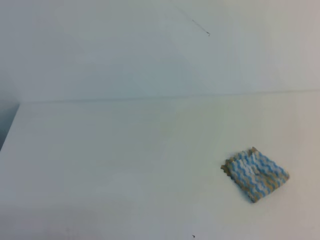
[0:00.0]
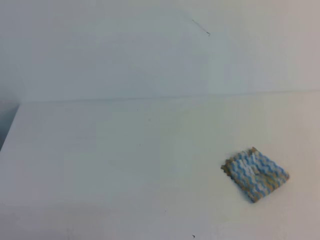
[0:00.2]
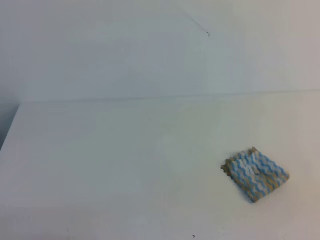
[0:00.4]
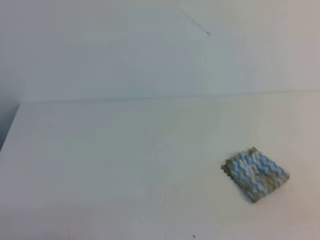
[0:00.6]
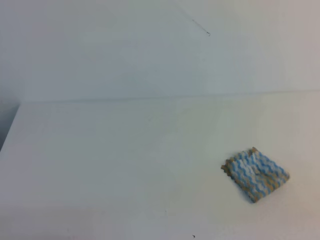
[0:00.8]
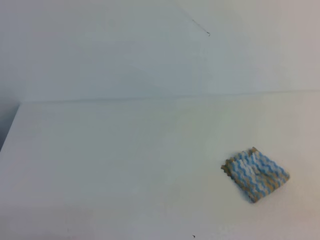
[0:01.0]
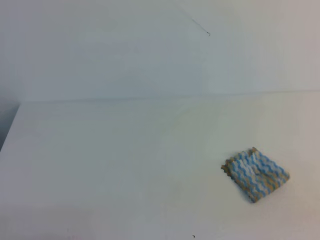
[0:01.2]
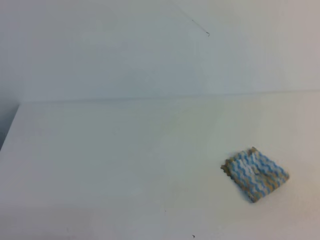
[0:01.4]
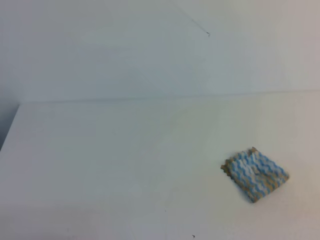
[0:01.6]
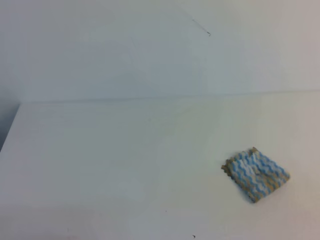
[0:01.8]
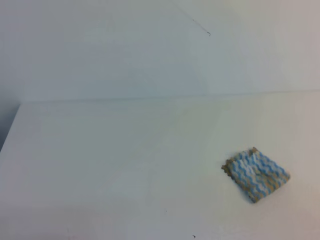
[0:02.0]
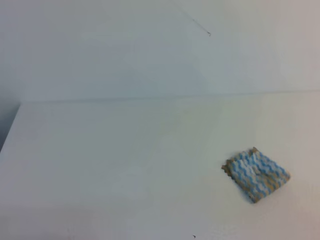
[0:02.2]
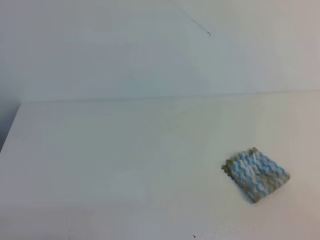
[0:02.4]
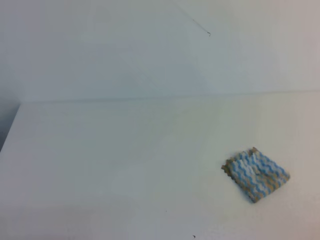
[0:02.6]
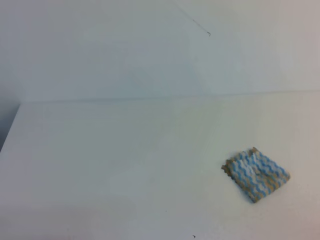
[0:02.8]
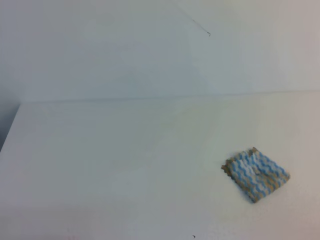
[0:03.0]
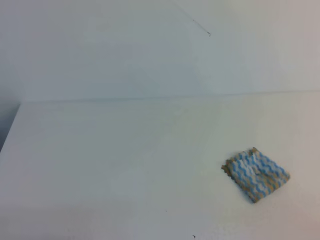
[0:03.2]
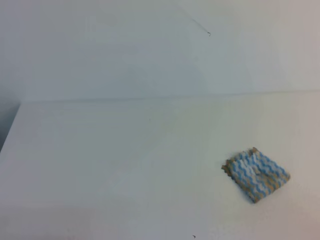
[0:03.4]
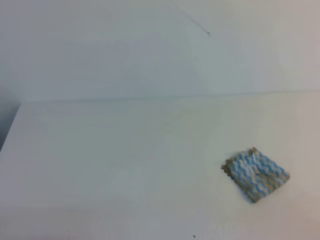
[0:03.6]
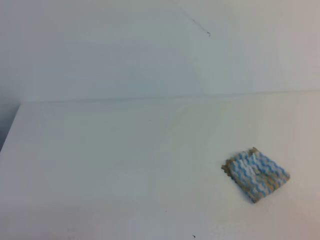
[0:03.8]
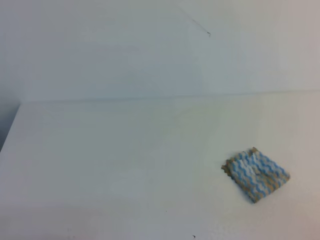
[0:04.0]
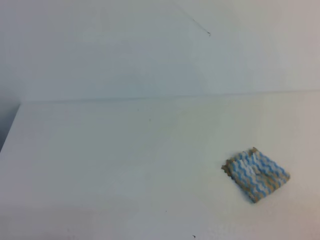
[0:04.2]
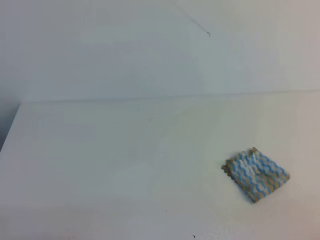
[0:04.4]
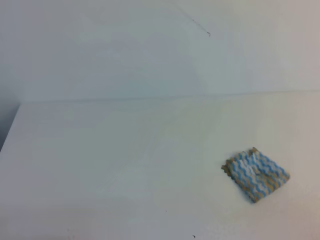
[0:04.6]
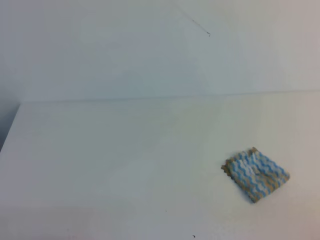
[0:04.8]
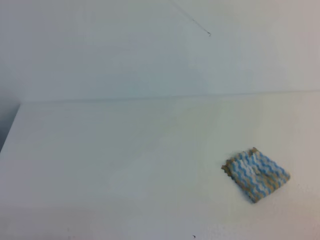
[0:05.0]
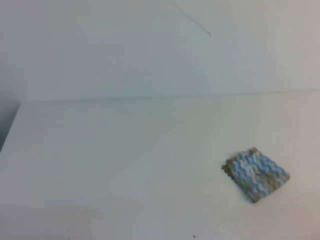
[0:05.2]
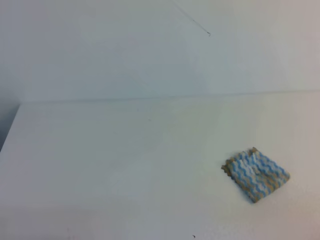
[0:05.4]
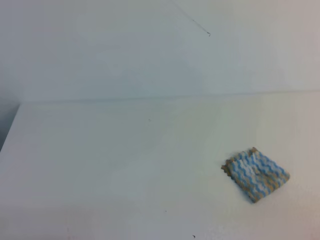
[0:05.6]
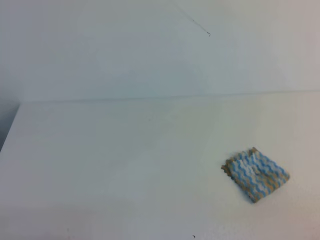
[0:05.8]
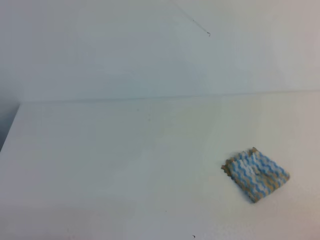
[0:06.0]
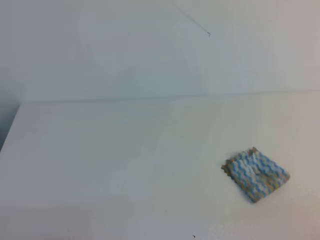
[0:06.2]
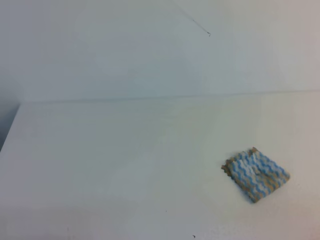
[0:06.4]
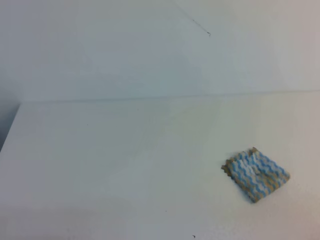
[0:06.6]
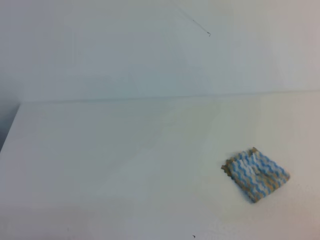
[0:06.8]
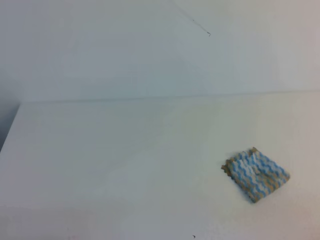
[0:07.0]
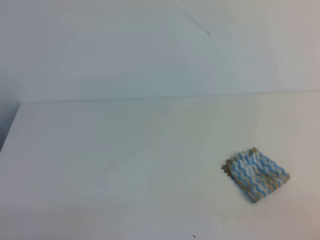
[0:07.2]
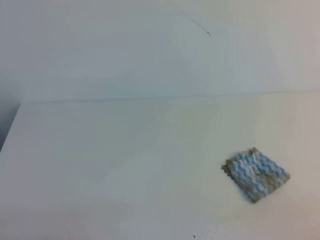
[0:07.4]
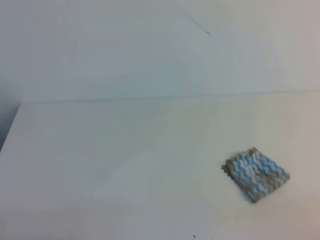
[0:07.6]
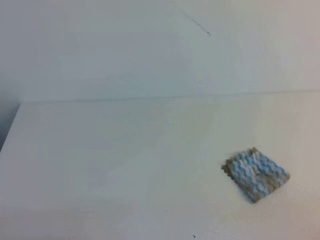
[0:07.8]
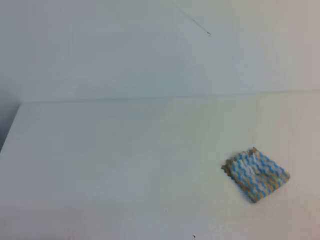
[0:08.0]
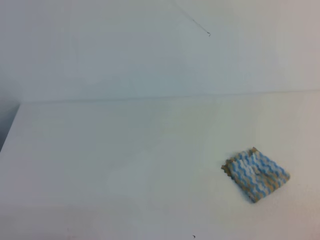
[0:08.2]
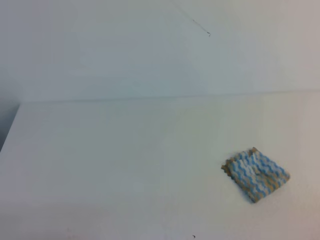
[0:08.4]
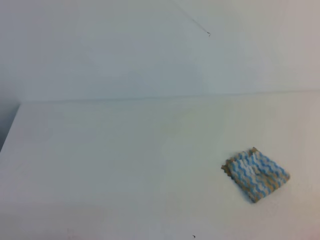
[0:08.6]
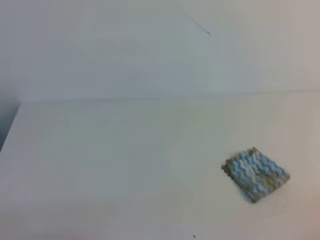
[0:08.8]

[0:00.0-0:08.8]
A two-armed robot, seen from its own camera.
0:04.4 to 0:08.8: Both grippers stay about where they are.

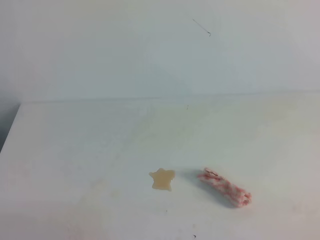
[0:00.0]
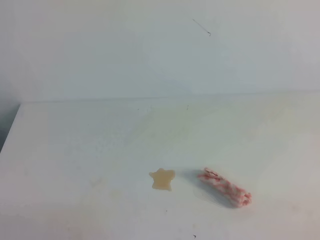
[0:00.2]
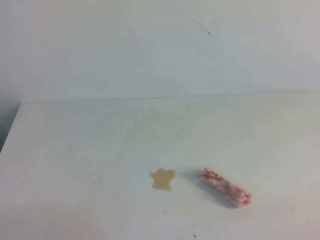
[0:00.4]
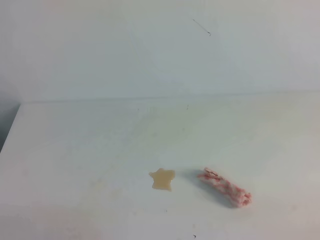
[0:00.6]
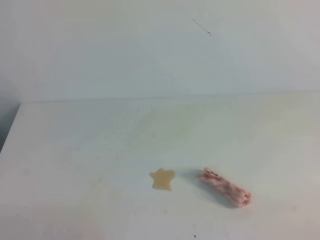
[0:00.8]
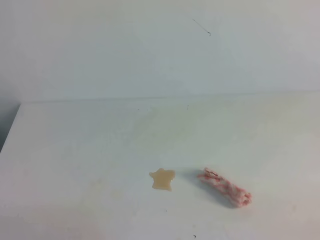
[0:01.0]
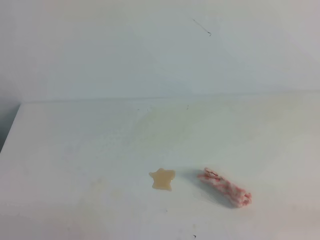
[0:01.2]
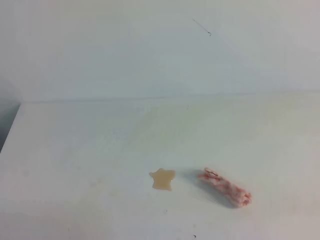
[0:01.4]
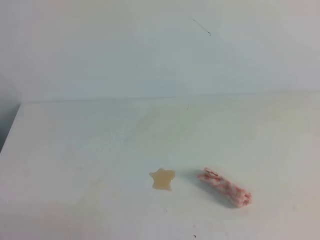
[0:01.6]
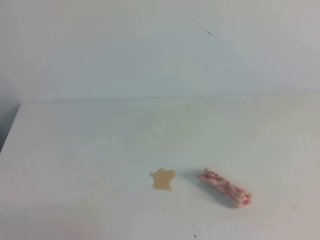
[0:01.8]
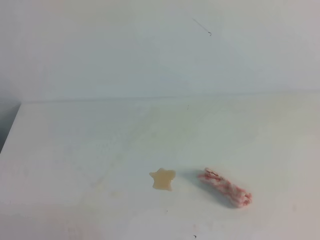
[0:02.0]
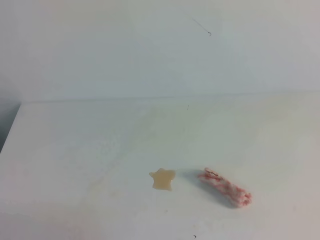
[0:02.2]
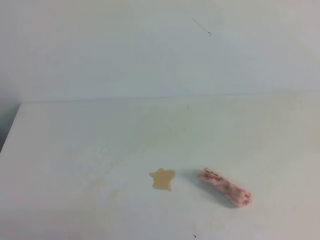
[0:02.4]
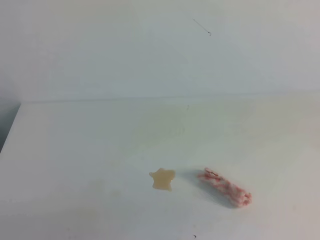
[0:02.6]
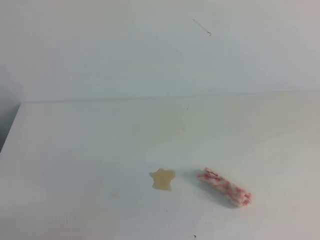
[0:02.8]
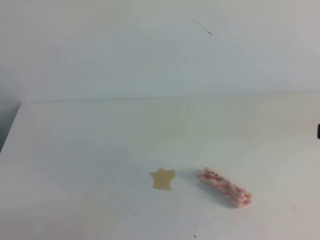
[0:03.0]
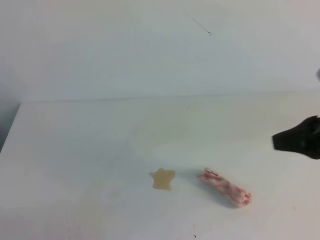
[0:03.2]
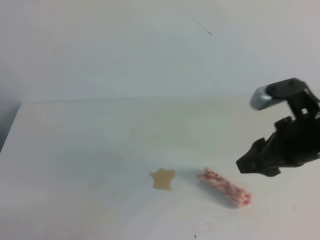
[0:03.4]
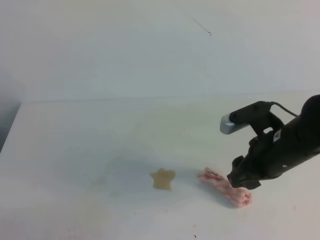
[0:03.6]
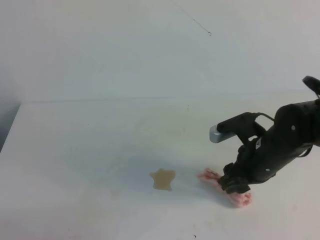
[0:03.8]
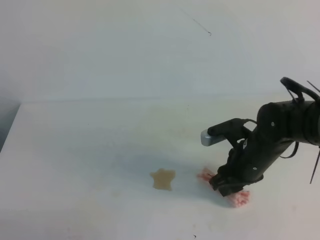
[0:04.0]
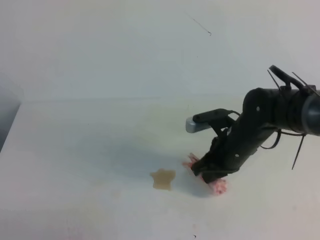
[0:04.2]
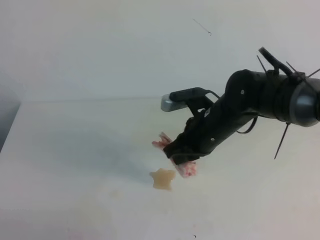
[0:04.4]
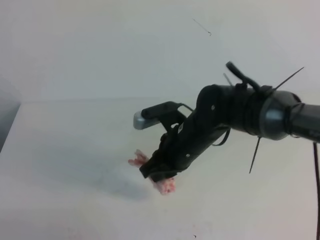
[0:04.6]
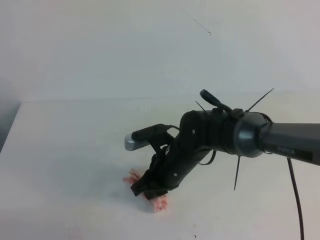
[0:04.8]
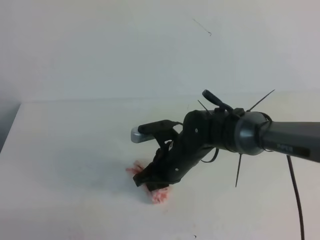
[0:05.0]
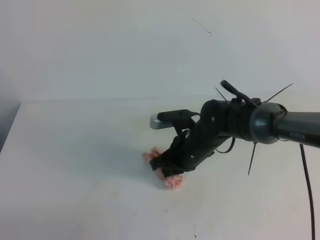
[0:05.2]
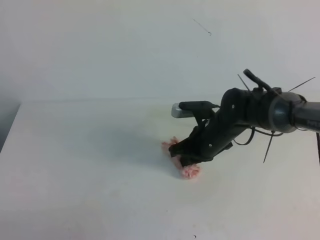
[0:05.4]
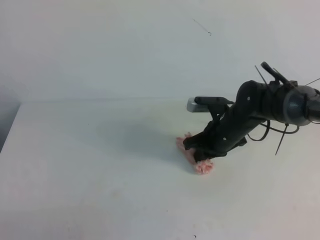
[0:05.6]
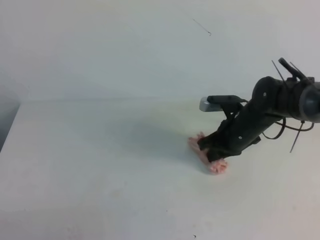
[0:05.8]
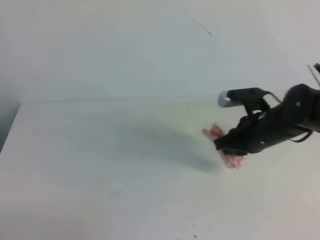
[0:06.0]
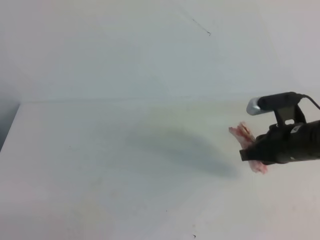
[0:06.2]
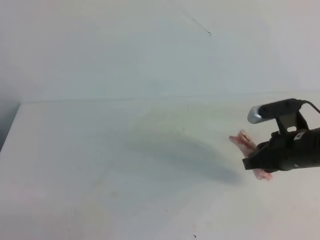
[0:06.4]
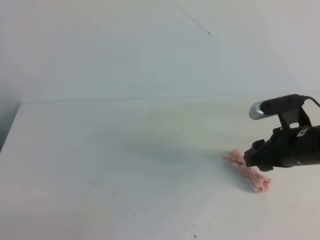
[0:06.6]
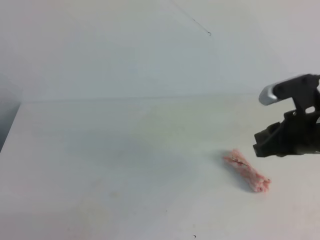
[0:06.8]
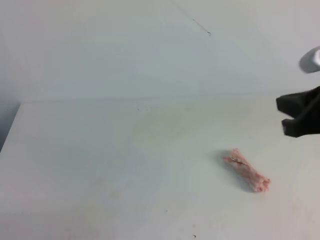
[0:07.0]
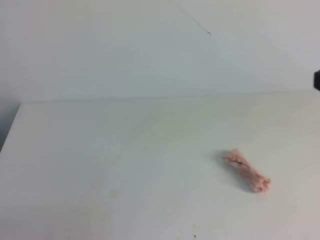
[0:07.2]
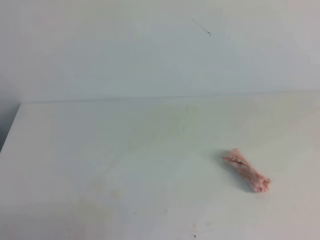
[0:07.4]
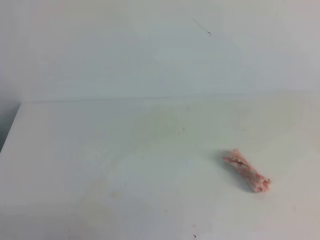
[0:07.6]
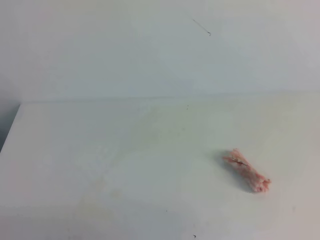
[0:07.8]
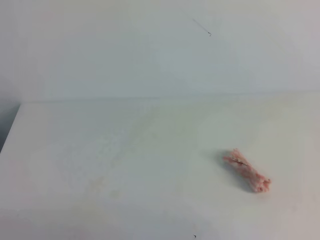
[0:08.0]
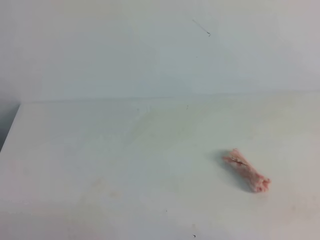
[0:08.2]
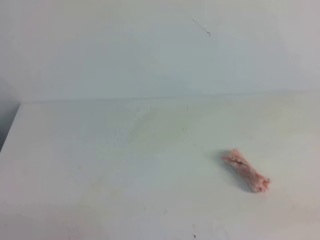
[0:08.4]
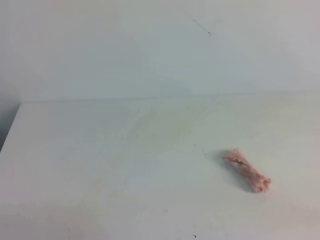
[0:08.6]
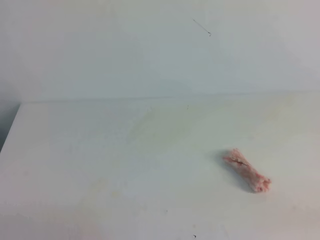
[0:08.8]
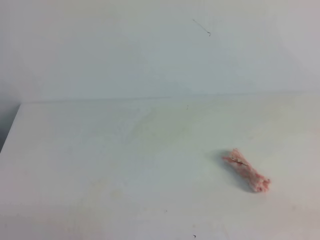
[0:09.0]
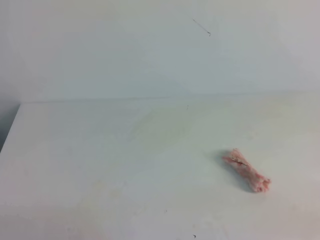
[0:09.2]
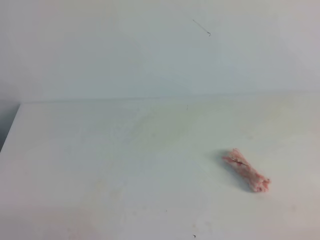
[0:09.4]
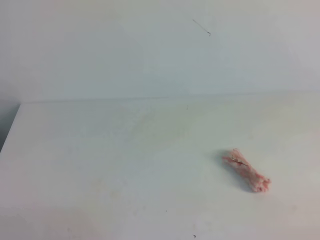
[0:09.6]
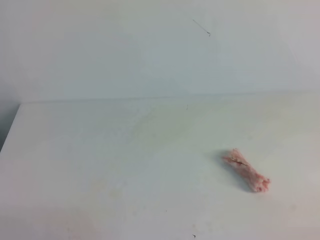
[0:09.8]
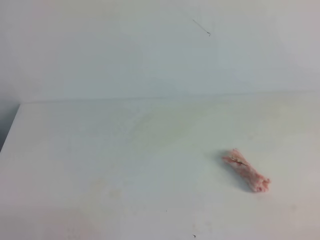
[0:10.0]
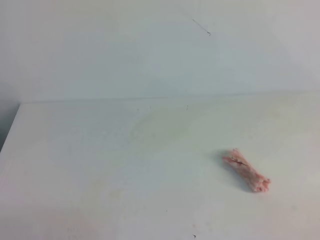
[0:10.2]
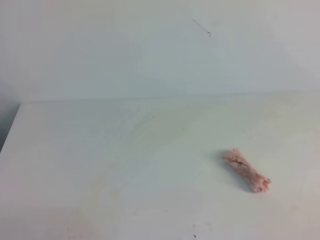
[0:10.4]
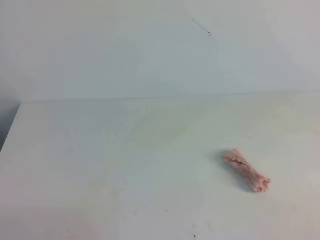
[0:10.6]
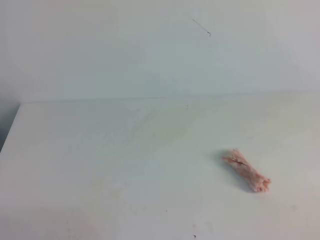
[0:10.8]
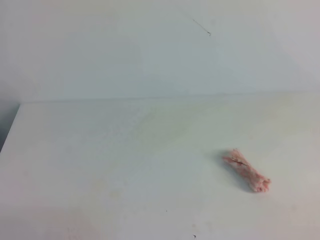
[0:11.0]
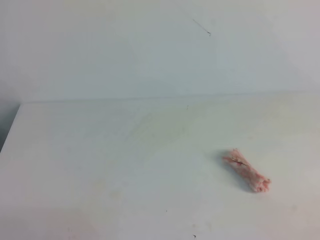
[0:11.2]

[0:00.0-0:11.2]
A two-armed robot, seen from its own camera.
0:01.6 to 0:03.2: The right gripper travels forward and to the left by approximately 20 cm, and opens up.
0:03.2 to 0:04.8: The right gripper is displaced to the left and downward by about 25 cm, and closes its fingers.
0:04.8 to 0:06.4: The right gripper heads to the right, covering about 20 cm, and opens its fingers.
0:06.4 to 0:08.0: The right gripper moves backward, about 20 cm, and closes its fingers.

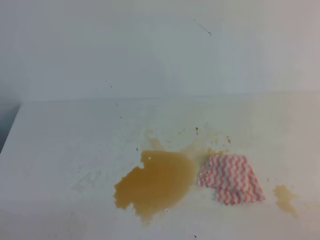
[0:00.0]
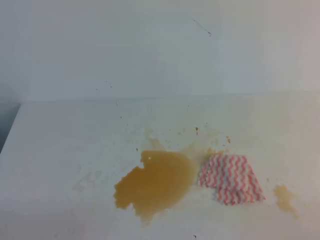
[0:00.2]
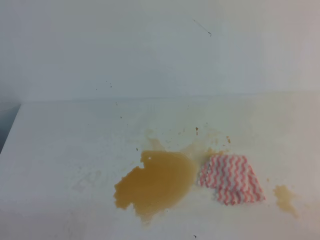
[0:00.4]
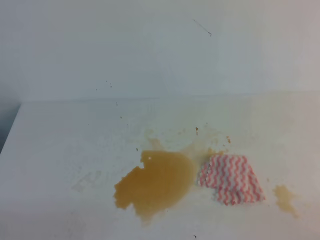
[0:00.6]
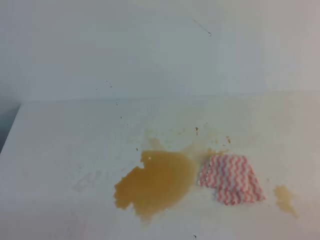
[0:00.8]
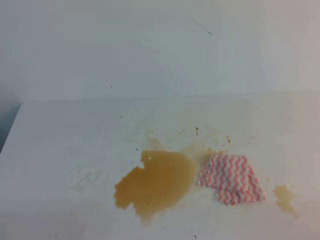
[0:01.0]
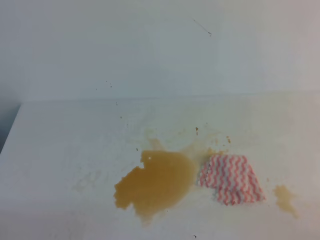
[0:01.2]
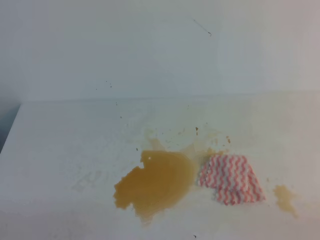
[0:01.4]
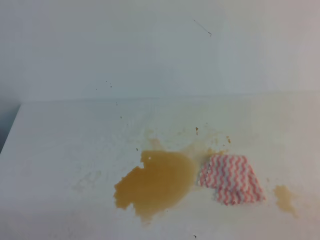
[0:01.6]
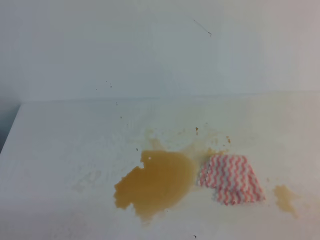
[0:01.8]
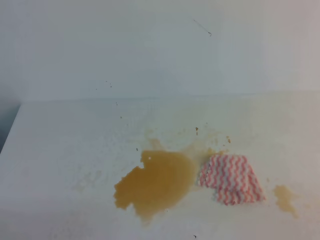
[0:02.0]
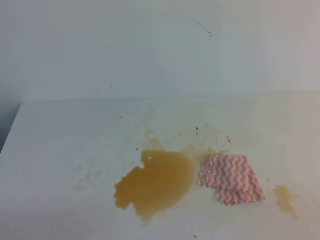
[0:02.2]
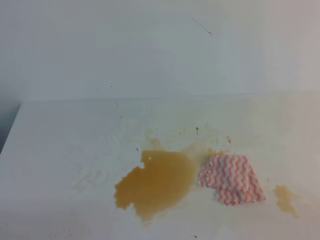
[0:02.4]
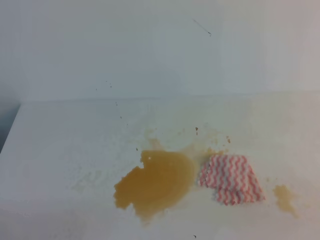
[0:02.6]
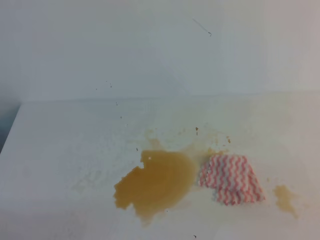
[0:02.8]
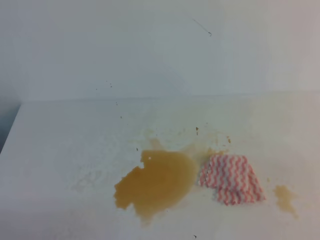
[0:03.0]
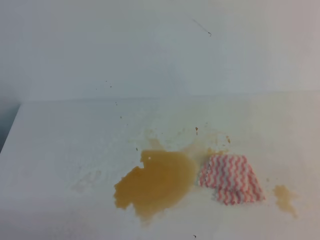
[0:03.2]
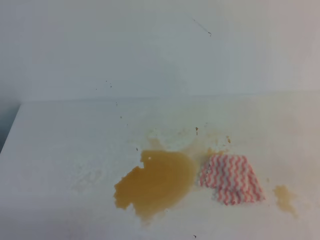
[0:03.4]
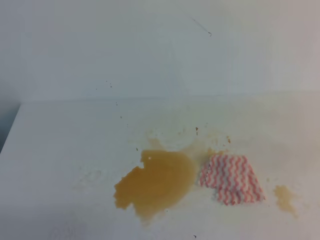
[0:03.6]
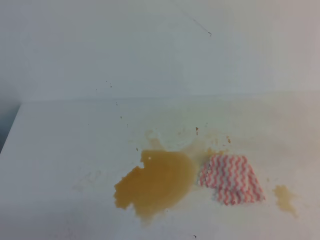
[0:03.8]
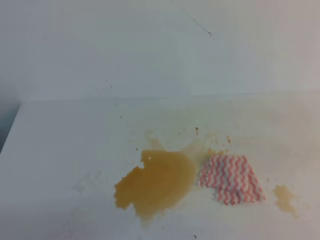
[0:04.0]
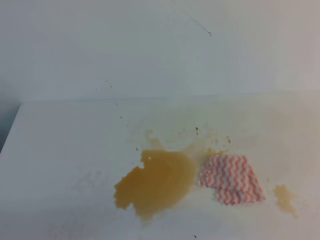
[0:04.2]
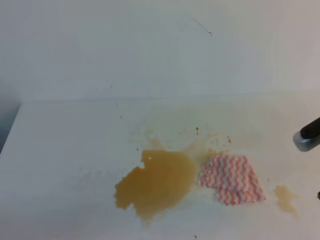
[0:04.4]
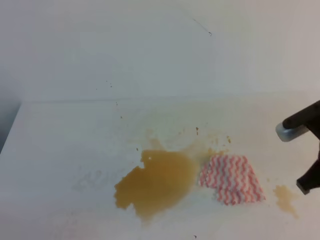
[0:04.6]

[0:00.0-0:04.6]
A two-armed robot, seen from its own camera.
0:03.0 to 0:04.6: The right gripper goes about 20 cm forward.
